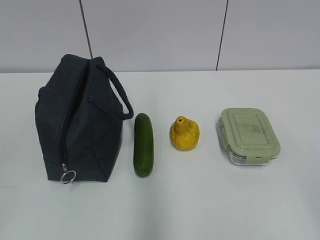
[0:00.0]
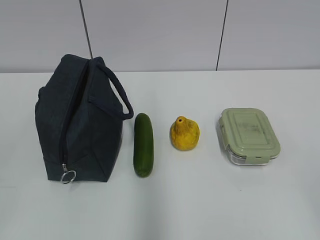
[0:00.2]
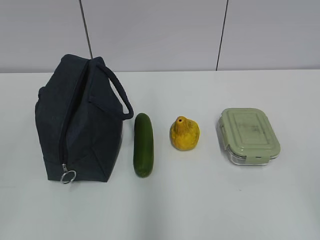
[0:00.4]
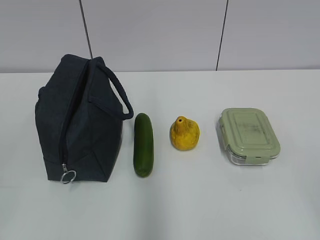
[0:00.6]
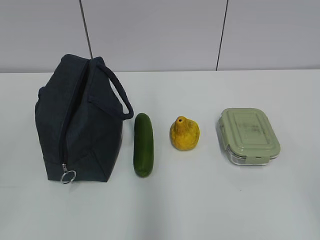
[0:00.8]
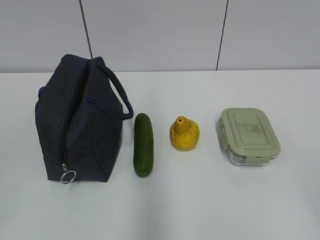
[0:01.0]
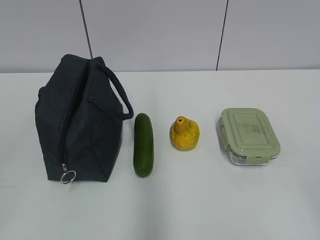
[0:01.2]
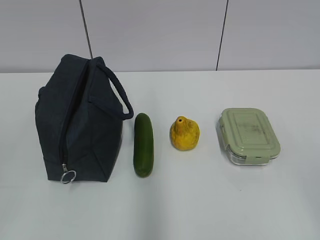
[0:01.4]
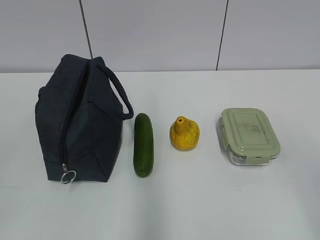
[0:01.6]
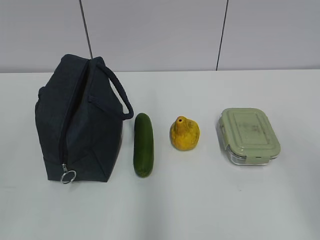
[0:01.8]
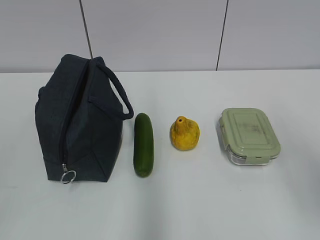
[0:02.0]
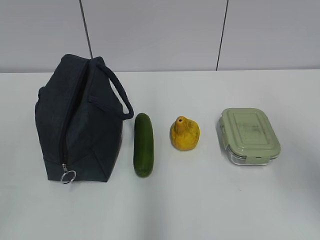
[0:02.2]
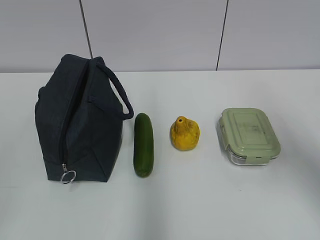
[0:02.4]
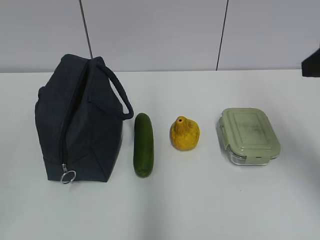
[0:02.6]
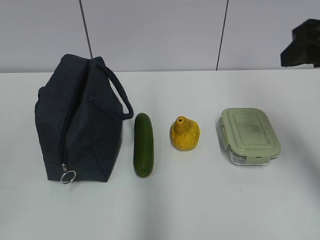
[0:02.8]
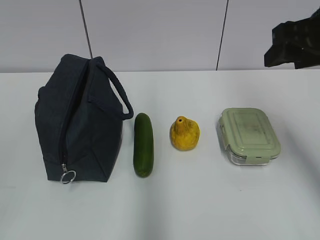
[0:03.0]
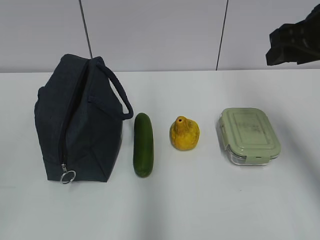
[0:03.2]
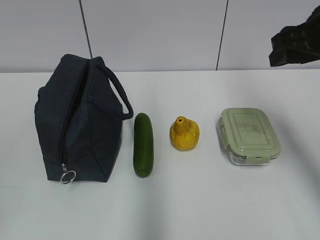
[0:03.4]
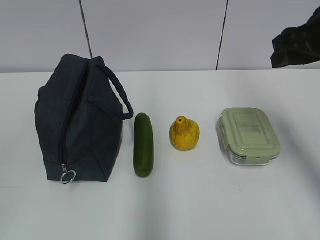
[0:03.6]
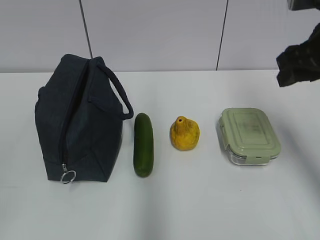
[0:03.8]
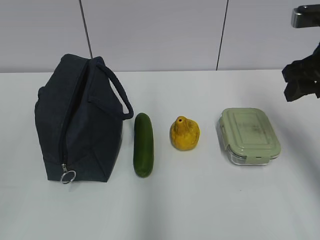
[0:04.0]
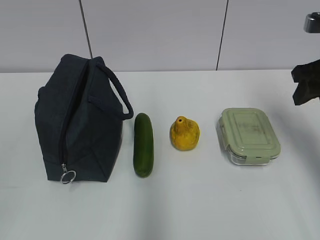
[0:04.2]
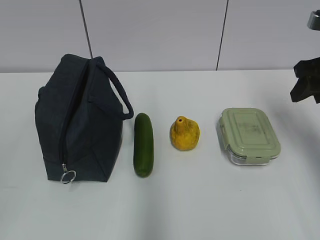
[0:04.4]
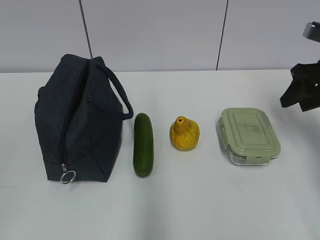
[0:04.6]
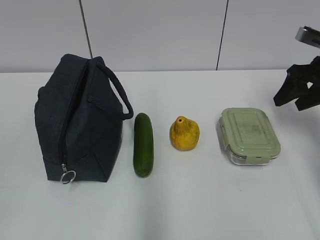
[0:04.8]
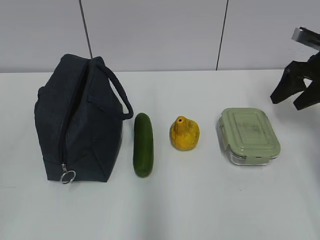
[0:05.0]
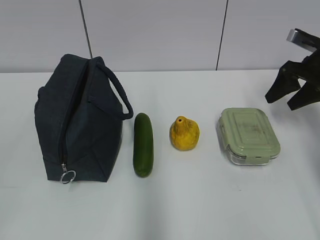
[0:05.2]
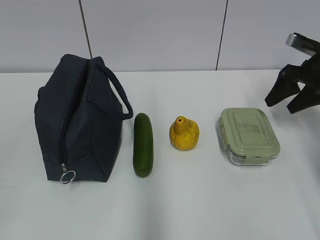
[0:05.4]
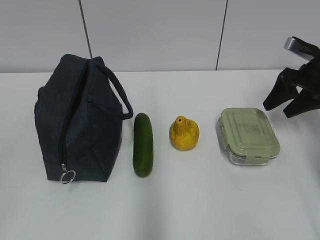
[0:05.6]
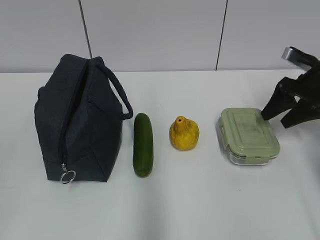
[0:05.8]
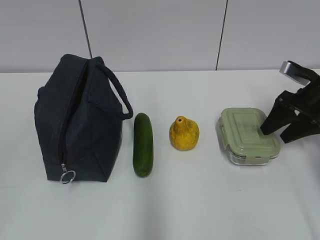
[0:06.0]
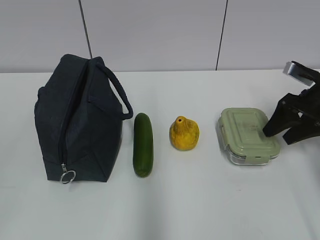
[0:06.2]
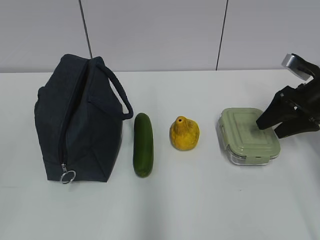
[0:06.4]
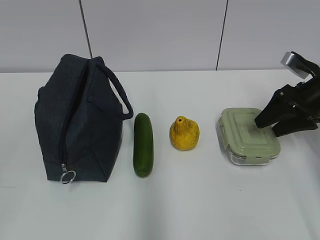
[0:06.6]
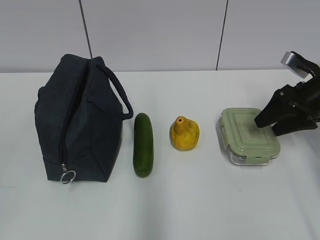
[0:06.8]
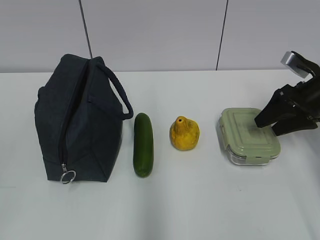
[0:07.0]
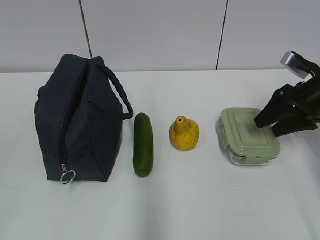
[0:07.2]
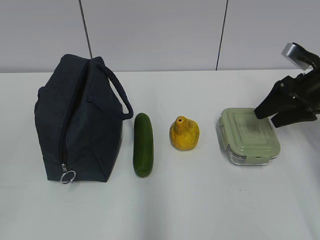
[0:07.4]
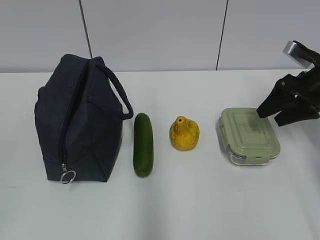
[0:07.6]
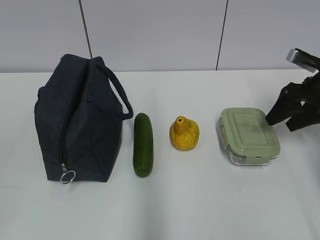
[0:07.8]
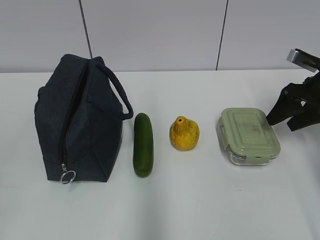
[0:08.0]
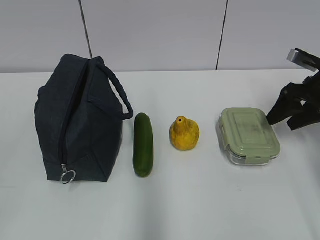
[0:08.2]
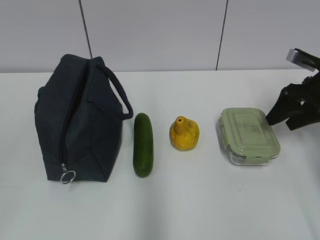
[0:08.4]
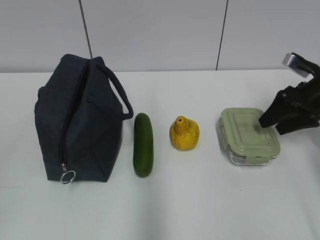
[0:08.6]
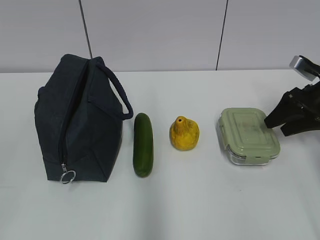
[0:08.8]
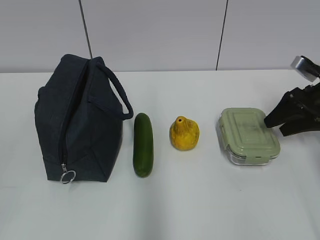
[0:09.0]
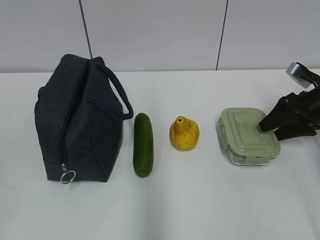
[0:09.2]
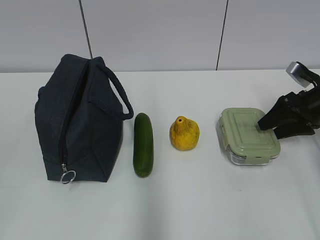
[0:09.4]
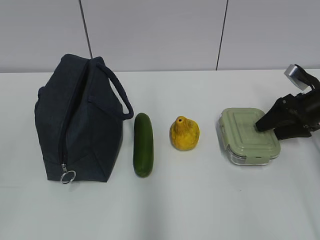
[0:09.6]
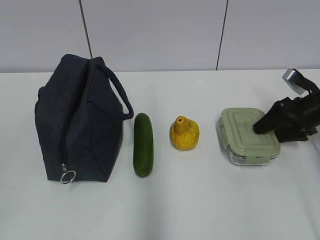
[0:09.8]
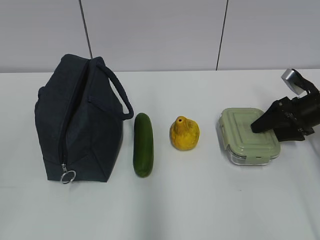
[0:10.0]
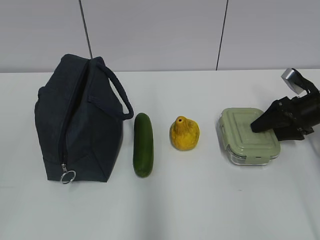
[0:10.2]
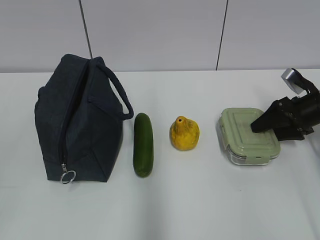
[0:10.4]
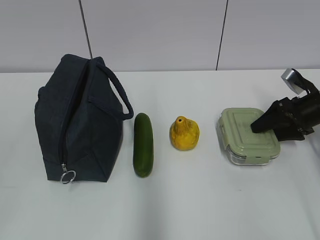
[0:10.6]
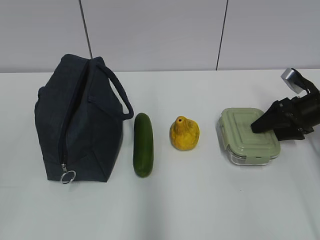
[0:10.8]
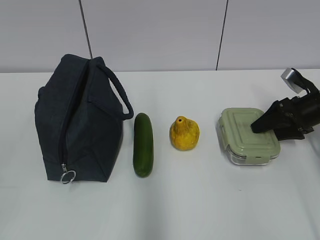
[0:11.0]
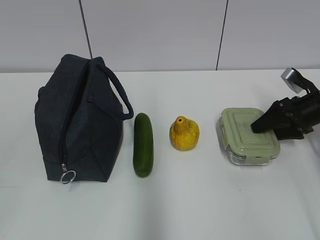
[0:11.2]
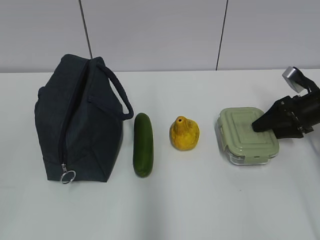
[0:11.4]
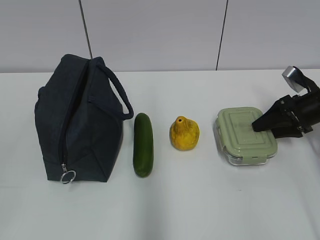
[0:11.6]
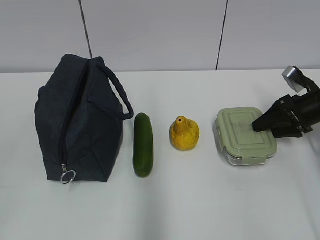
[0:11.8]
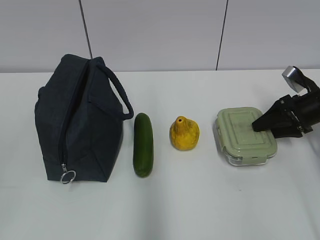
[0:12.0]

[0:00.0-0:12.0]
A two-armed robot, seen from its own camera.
0:01.6 to 0:03.0: The right gripper is displaced forward by about 30 cm.
0:03.0 to 0:04.4: The right gripper shifts about 10 cm to the right and downward.
0:04.4 to 0:06.0: The right gripper is displaced downward and forward by some 10 cm.
0:06.0 to 0:10.4: The grippers stay close to where they were, moving slightly.
0:10.4 to 0:12.0: The two grippers keep their place.

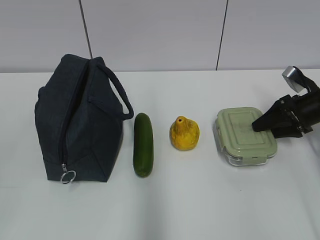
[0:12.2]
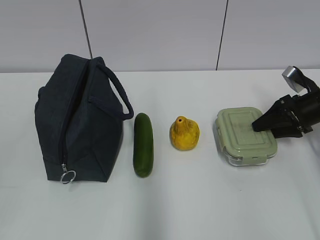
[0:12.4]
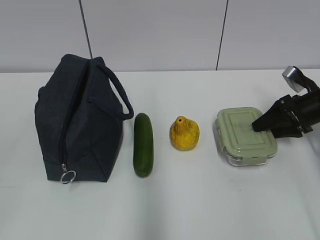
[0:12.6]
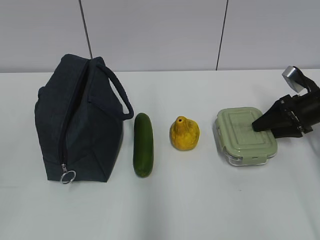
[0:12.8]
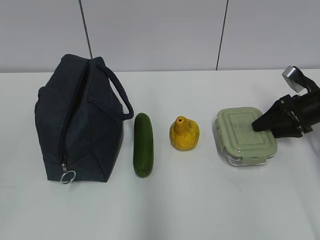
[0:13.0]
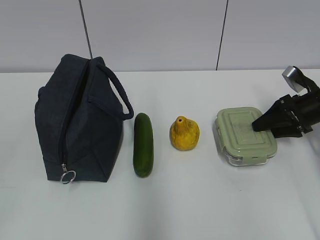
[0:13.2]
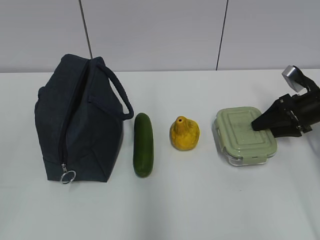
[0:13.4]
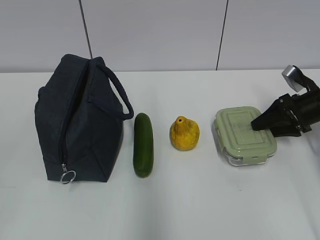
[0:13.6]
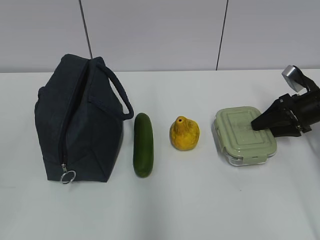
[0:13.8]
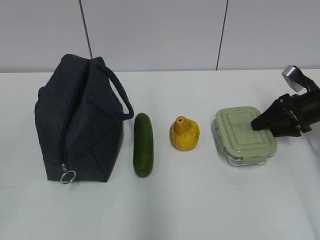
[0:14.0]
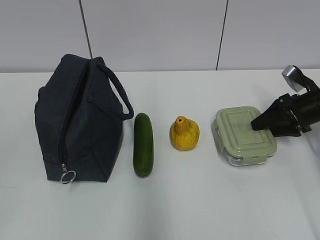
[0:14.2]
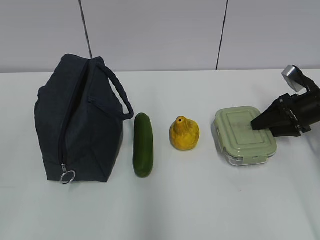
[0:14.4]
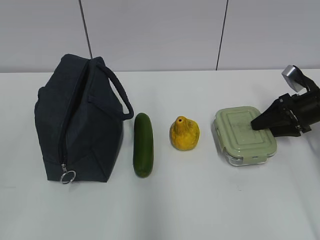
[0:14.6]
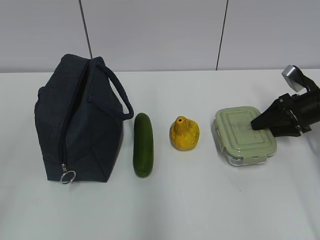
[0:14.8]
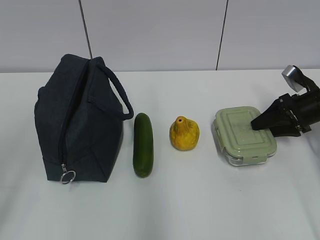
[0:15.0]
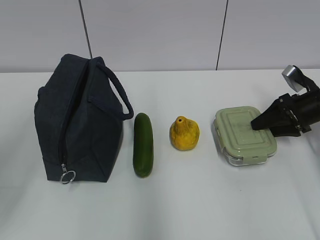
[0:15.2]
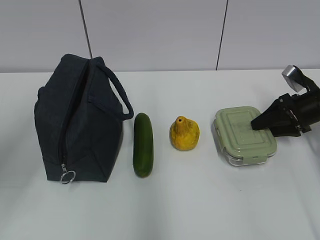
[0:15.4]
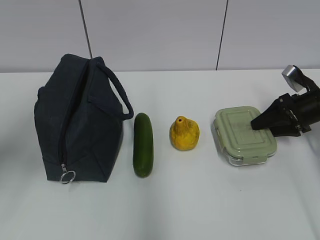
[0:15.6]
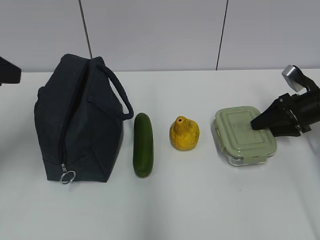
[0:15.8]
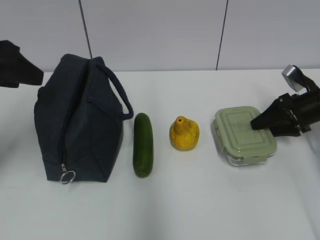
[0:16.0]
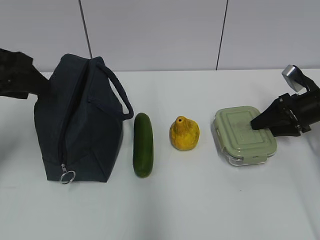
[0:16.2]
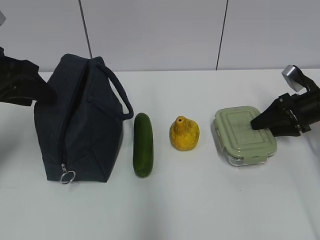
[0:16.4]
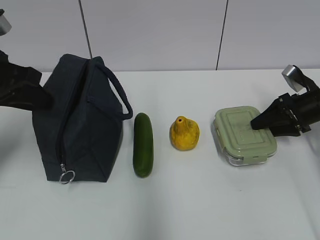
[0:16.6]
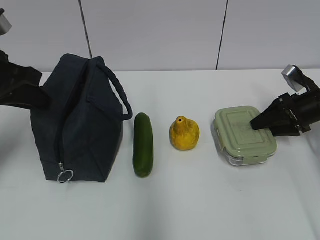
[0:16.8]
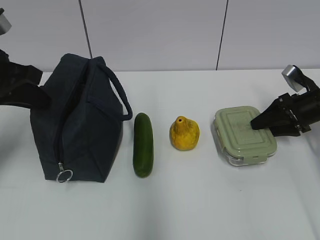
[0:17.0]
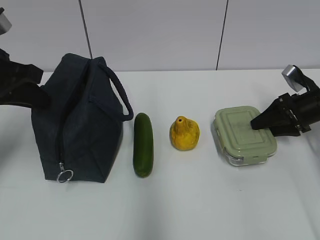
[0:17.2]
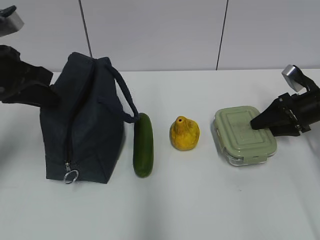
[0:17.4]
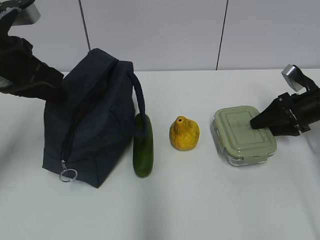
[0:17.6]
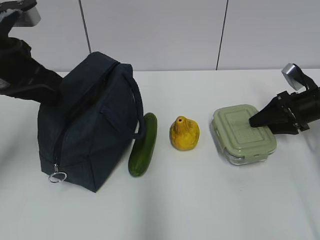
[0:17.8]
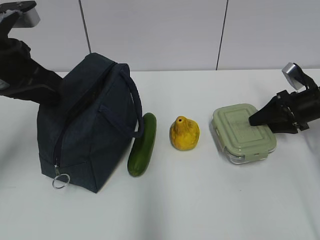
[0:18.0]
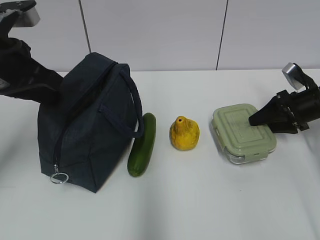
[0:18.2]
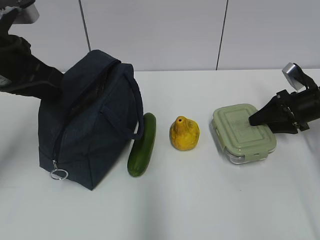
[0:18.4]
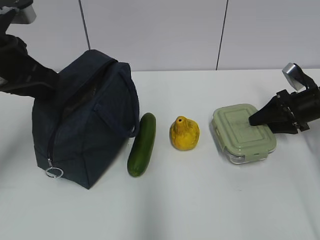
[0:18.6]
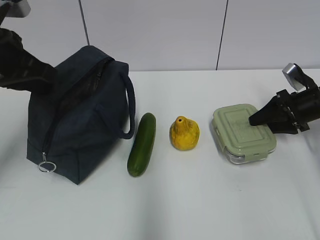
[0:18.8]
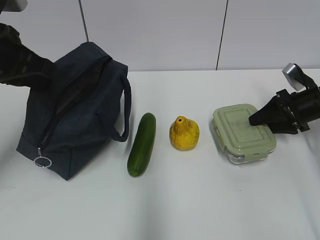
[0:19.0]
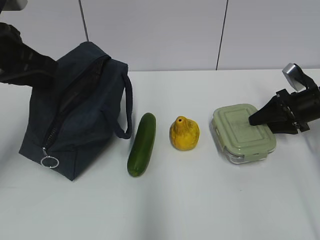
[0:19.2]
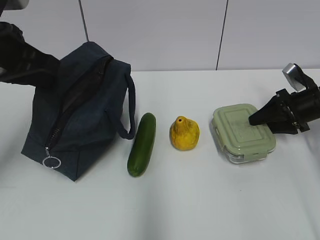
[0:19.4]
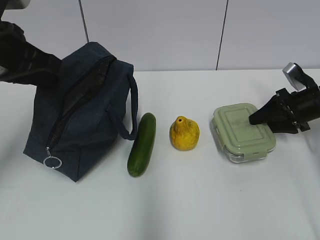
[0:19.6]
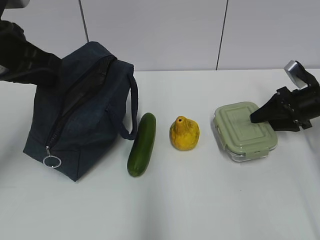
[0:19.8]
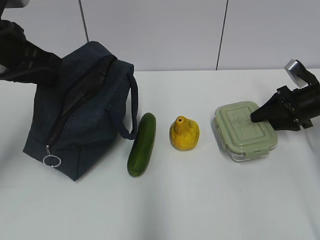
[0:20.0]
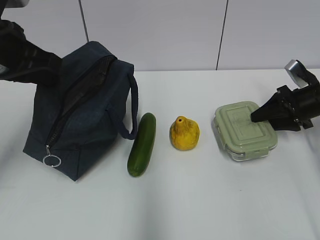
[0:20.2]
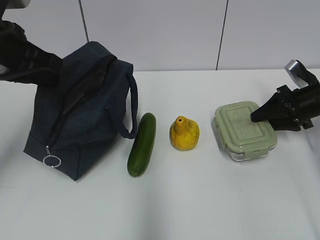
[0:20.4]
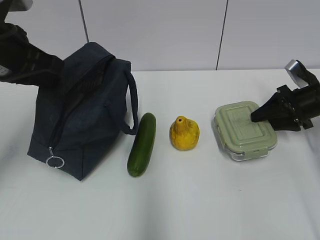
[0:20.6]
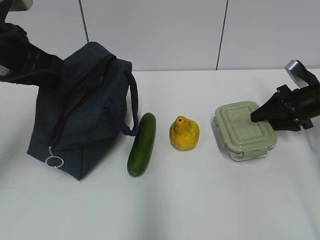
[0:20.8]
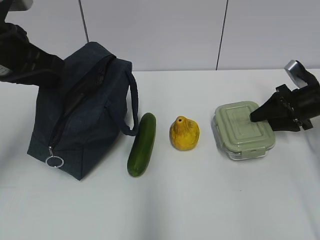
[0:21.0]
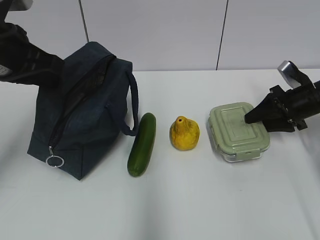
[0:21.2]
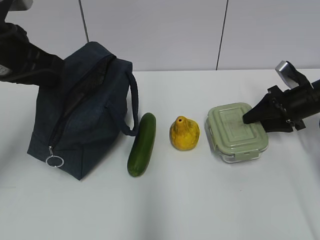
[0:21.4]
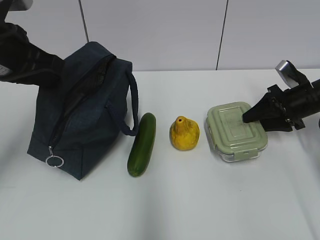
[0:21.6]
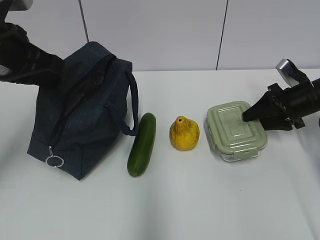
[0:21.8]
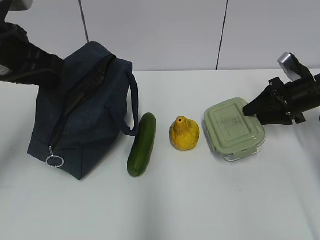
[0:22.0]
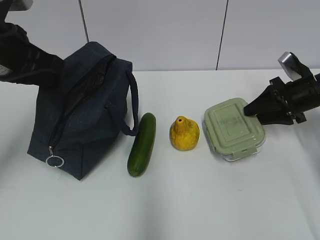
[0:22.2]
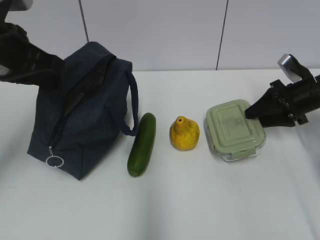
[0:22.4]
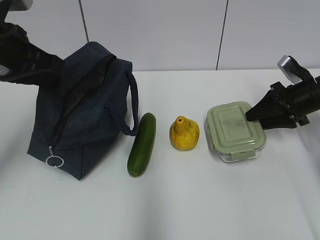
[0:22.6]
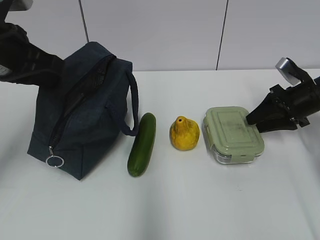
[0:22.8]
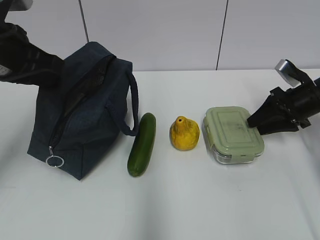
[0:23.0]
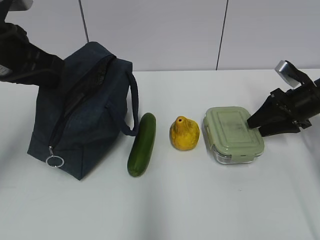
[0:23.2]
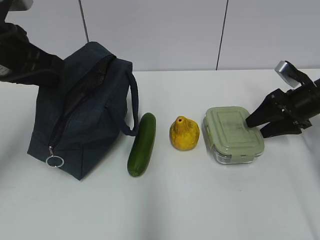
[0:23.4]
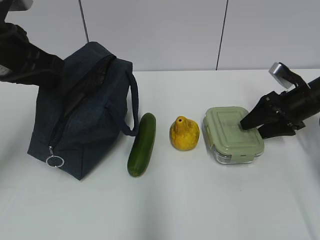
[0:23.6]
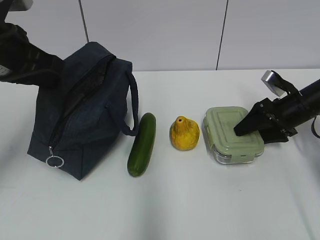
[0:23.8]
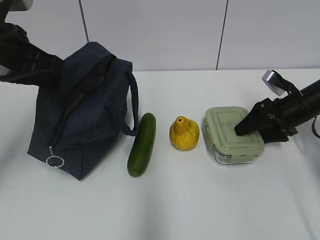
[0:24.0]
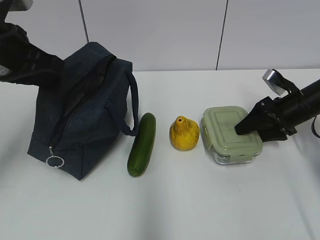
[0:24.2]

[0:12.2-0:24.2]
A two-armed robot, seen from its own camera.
0:12.2 to 0:13.8: Both grippers stay about where they are.
0:15.2 to 0:16.6: The left gripper moves forward, some 20 cm.
0:16.6 to 0:18.2: The left gripper closes its fingers.
0:18.2 to 0:19.8: The grippers stay close to where they were, moving slightly.
0:19.8 to 0:21.2: The two grippers keep their place.
0:21.2 to 0:24.2: The grippers make only small movements.
